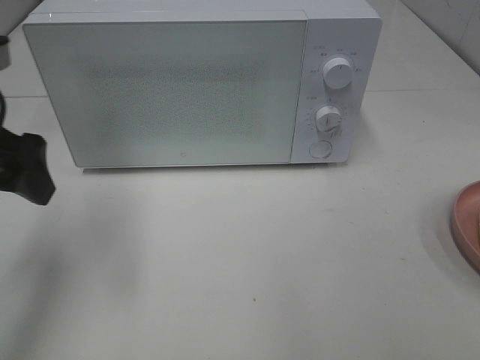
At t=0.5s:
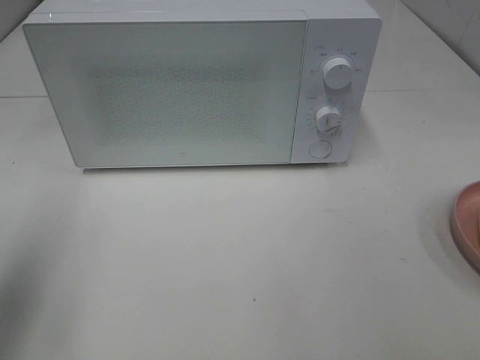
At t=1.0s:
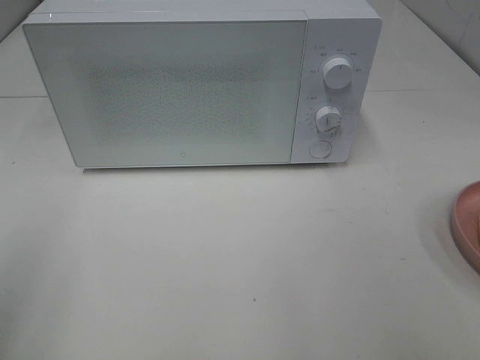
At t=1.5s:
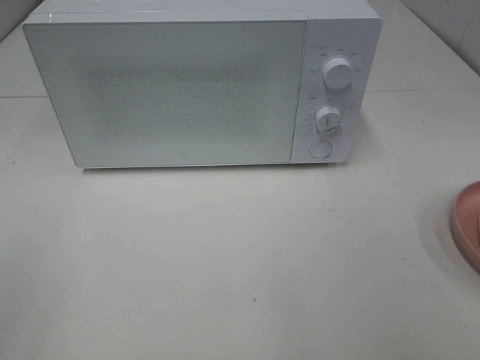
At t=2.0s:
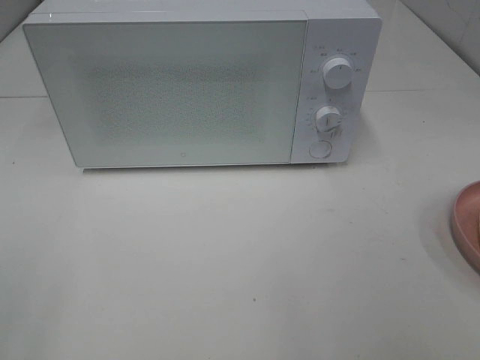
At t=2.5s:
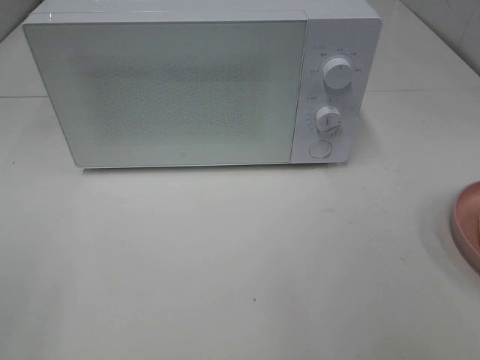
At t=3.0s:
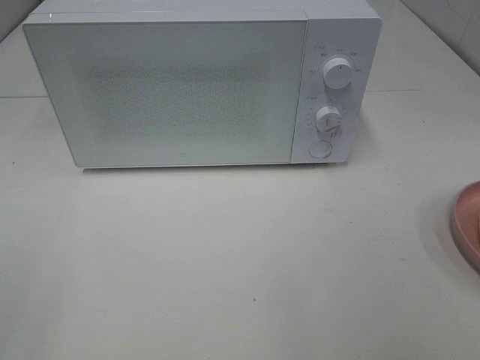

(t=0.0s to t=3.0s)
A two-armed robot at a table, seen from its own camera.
Task of the whole recording: Heat Sandwich.
t=0.0s - t=1.5s: The left gripper shifts about 20 cm backward.

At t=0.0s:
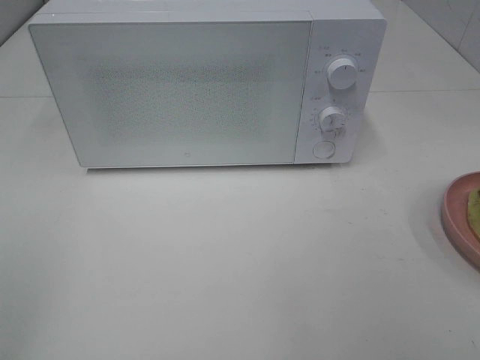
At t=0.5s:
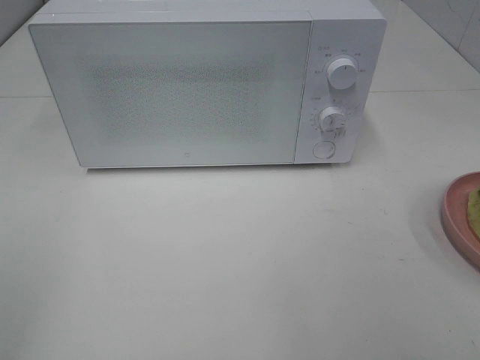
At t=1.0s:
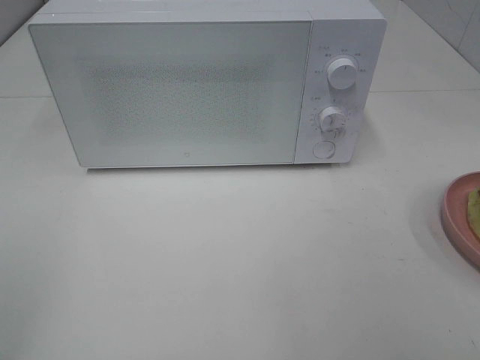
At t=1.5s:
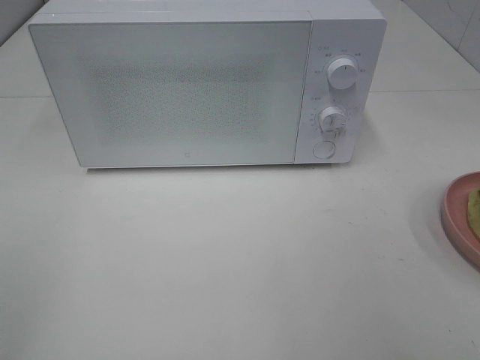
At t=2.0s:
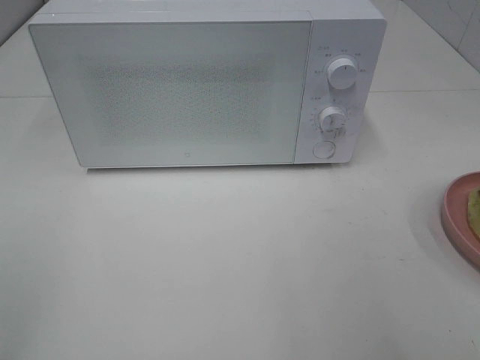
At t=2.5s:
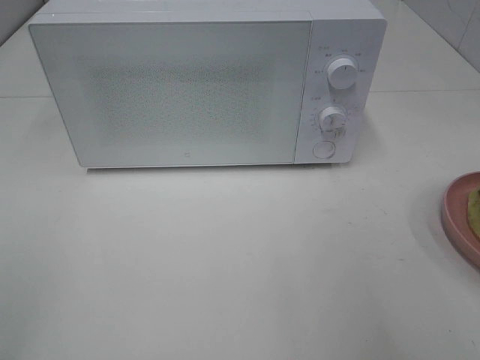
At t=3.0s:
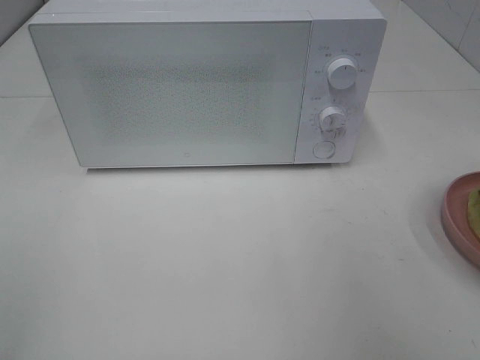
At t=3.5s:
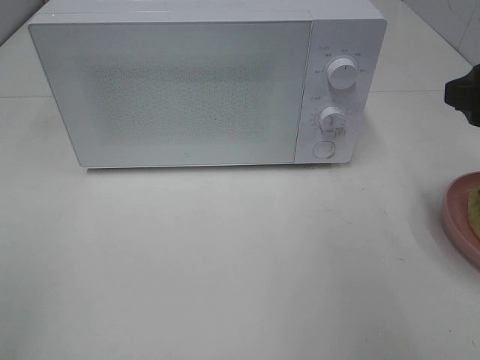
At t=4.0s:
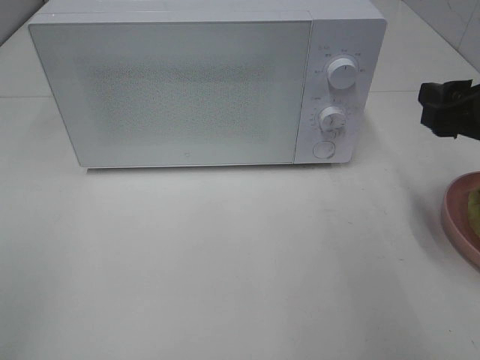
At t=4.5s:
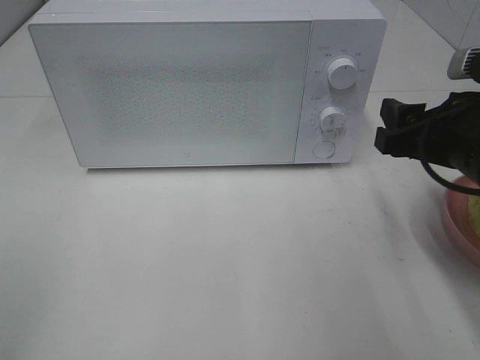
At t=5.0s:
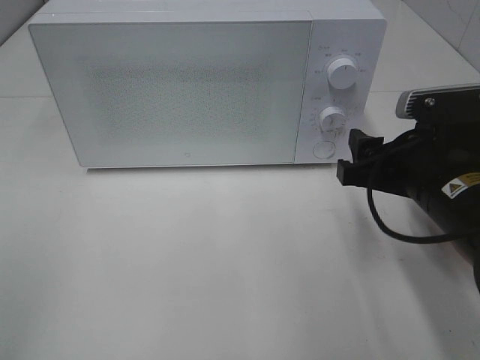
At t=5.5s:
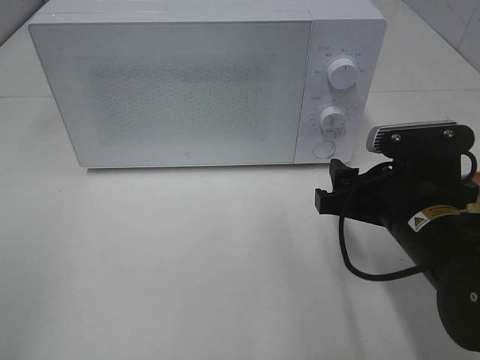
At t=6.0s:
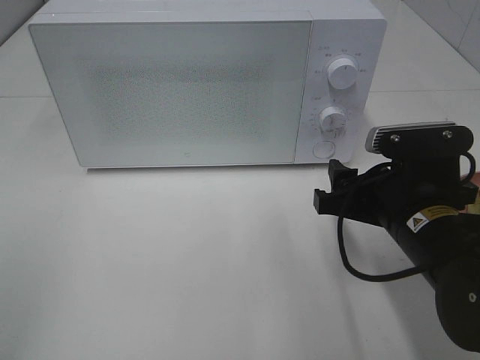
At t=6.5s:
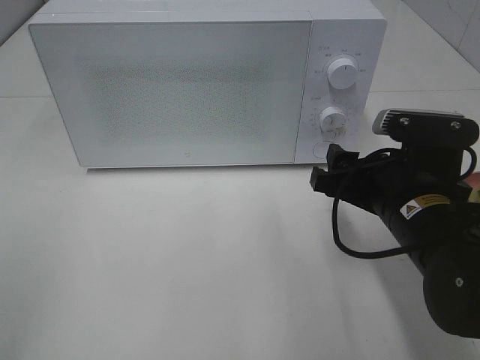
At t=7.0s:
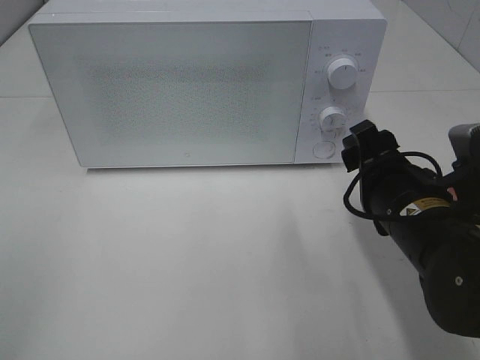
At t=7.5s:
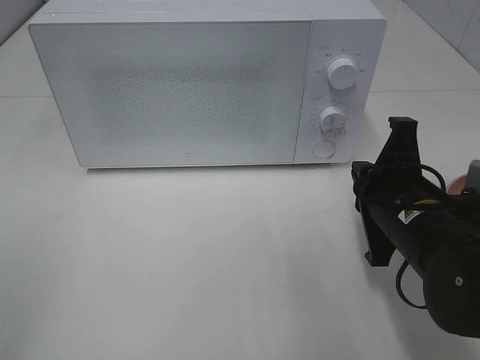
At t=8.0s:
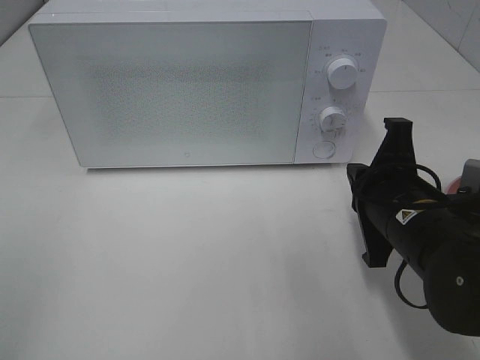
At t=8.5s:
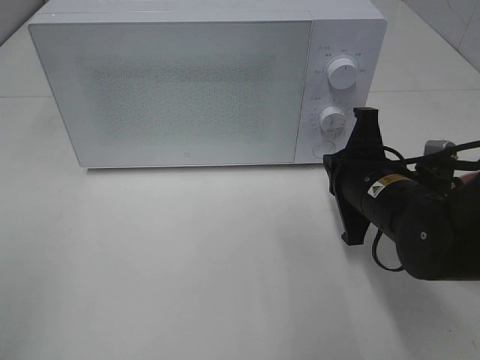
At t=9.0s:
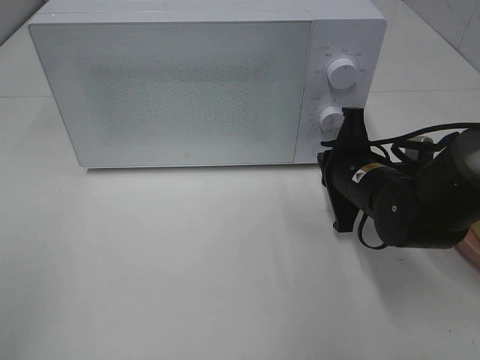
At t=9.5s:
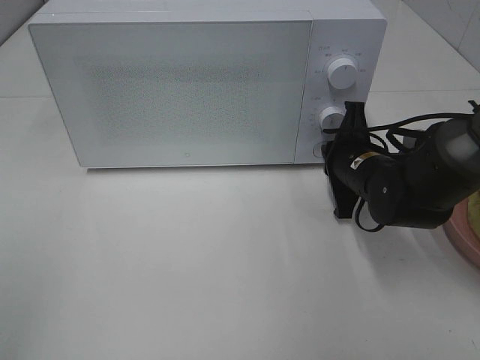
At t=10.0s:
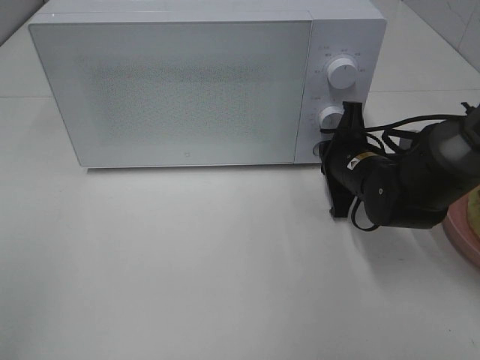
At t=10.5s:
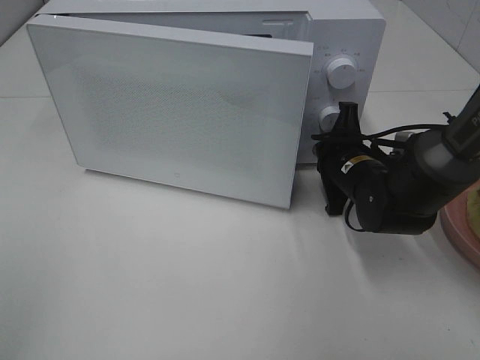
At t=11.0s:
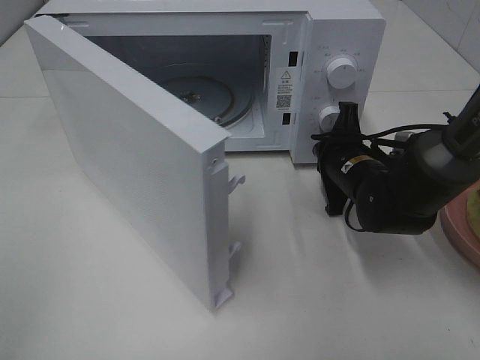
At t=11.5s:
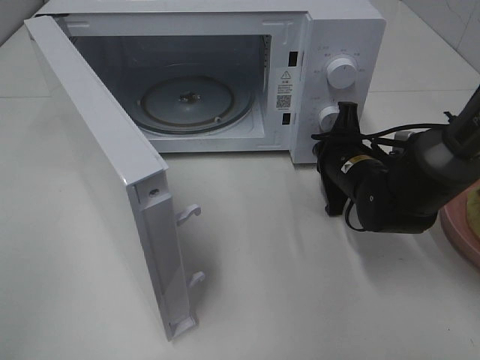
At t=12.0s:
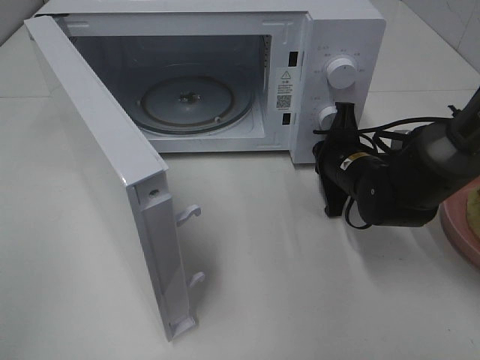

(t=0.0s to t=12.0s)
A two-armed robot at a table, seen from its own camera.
Task of the whole recording: Heat Sandwich.
t=2.0s - t=4.0s: The right gripper heads forward and downward, covering some 15 cm.
t=4.0s - t=6.0s: The right gripper moves to the left and downward, approximately 15 cm.
t=6.0s - t=8.0s: The right gripper closes.
t=8.0s - t=10.0s: The right gripper shifts approximately 15 cm forward.

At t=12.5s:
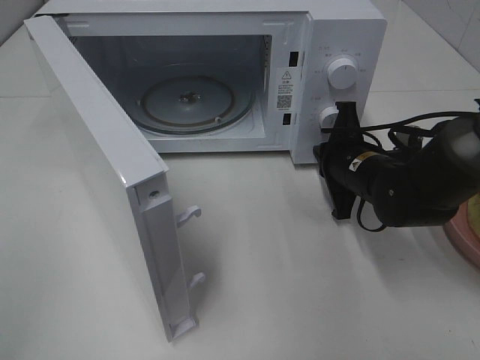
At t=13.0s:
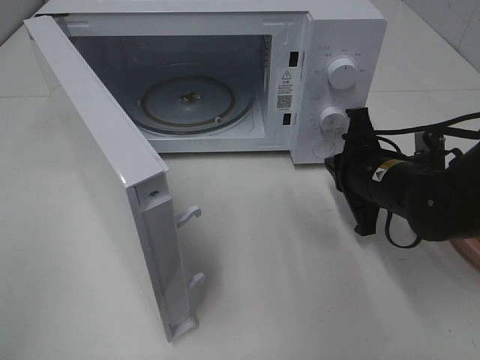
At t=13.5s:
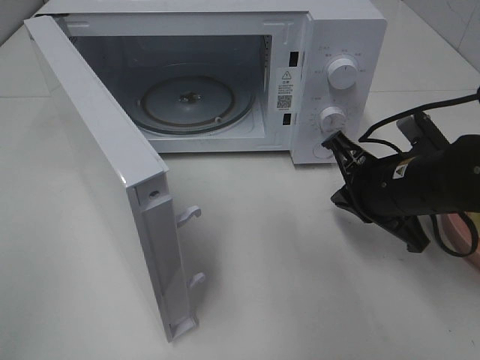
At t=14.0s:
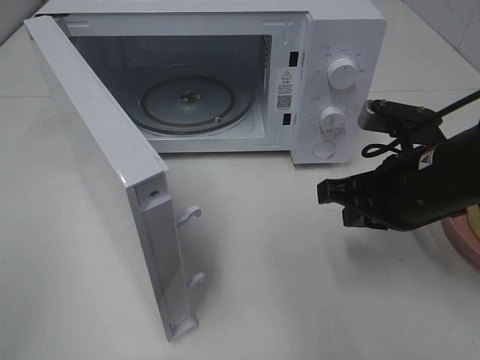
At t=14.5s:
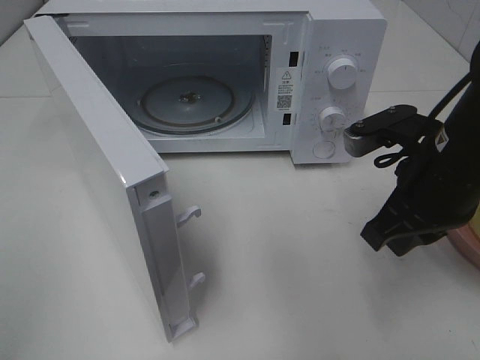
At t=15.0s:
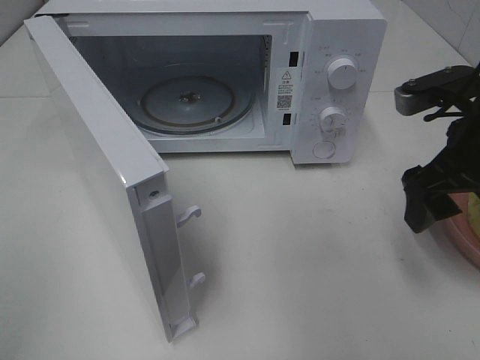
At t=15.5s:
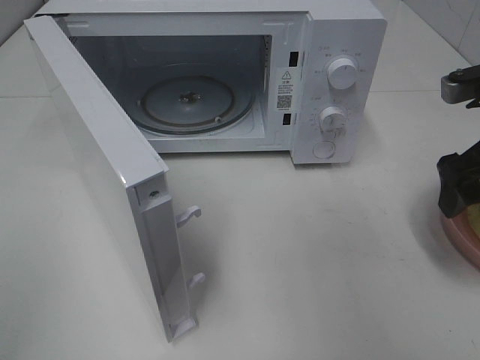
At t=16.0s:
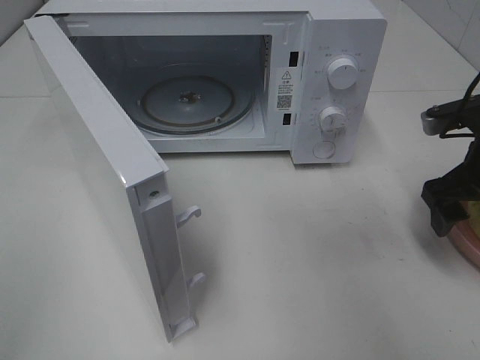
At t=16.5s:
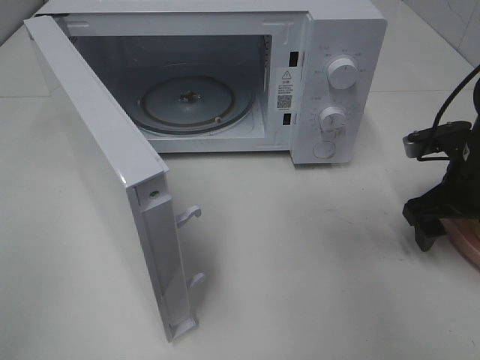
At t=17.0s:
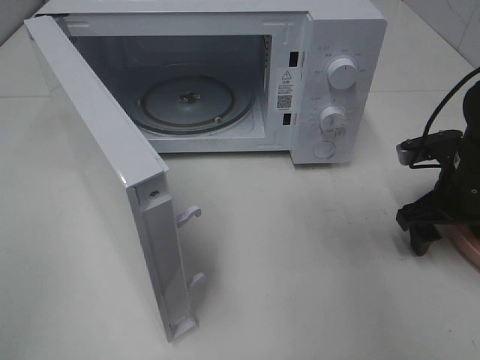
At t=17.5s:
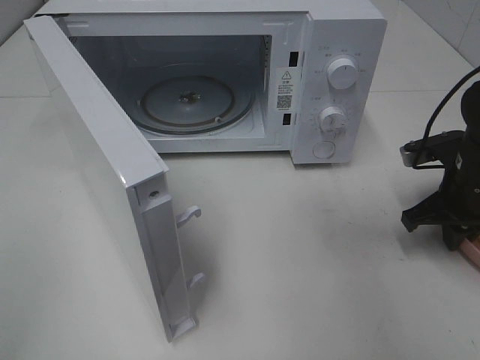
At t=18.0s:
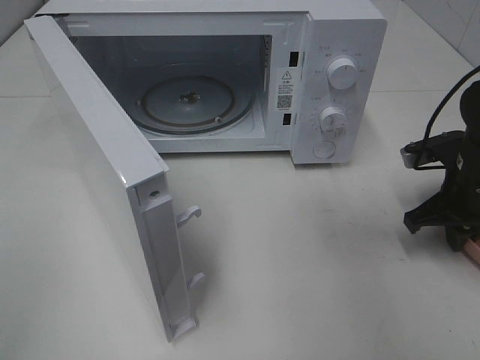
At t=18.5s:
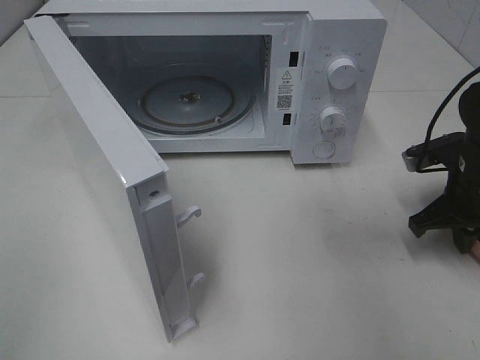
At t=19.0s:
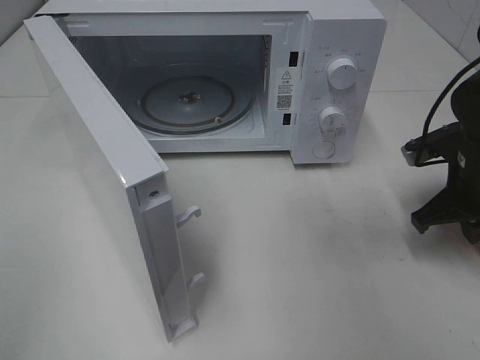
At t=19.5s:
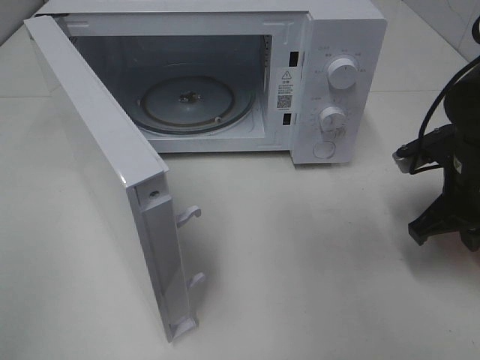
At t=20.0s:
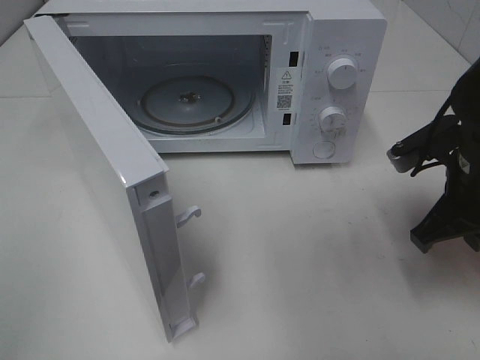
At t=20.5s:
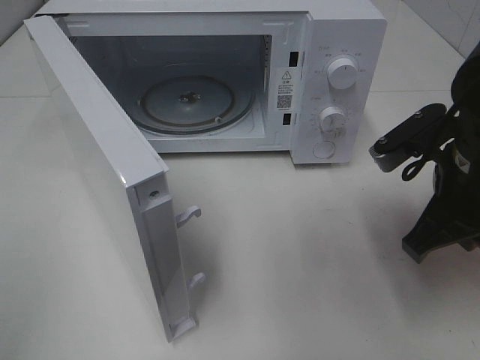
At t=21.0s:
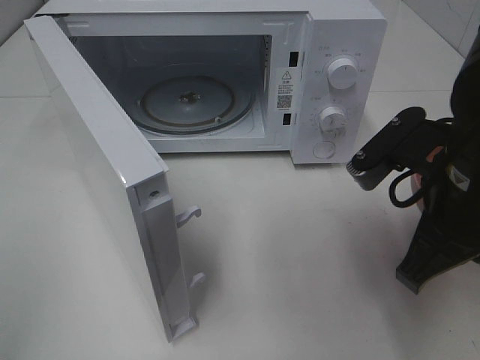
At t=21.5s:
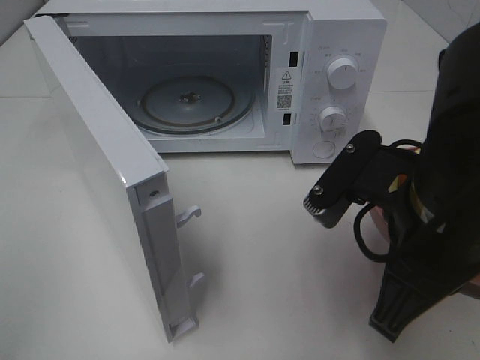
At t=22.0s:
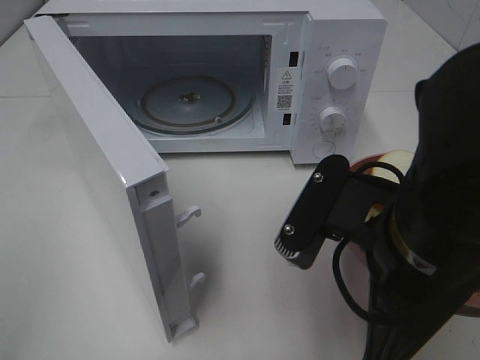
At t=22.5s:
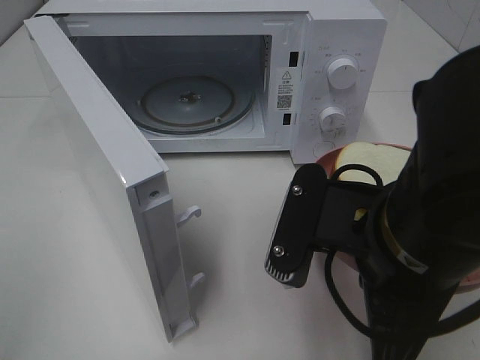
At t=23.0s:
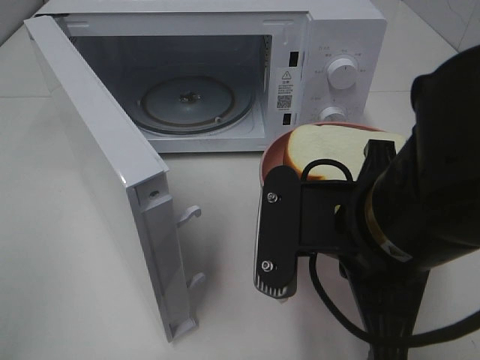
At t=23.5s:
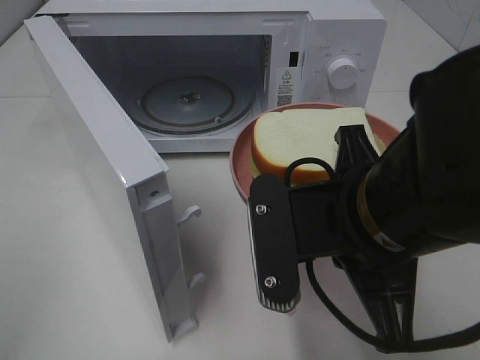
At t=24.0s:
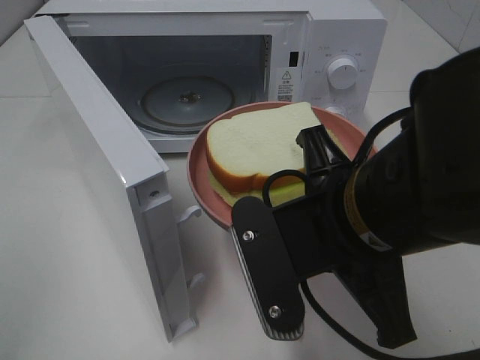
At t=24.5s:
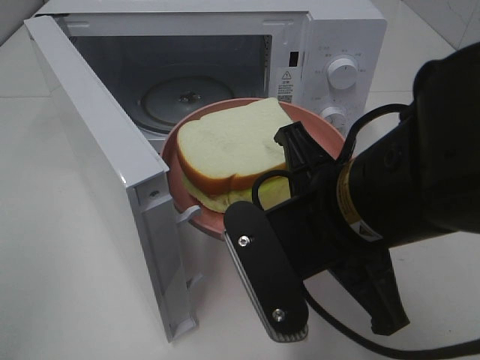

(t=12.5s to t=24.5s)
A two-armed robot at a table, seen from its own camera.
Task of the whole recording: Heat Sandwich.
Step, t=13.0s - t=18.0s: Right hand: grab the plate with the sandwich.
t=12.5s - t=14.5s: The right gripper is displaced upward and backward by approximately 15 cm.
t=14.5s - t=16.5s: The right gripper shifts some 15 cm to the right, downward and forward, and opens.
t=16.5s - t=18.5s: The right gripper closes.
t=18.5s - t=20.5s: The right gripper travels upward, to the left and backward by approximately 15 cm.
t=20.5s - t=22.5s: The right gripper travels to the left and backward by about 15 cm.
